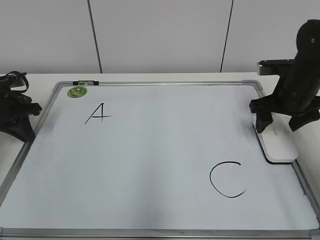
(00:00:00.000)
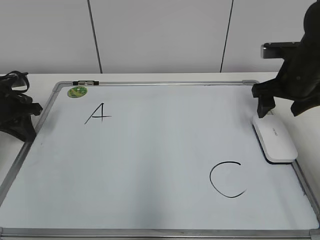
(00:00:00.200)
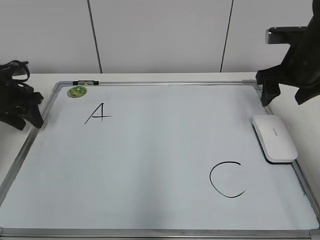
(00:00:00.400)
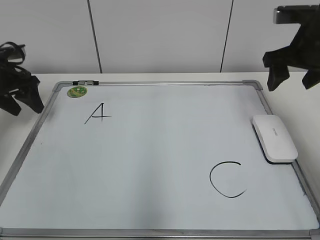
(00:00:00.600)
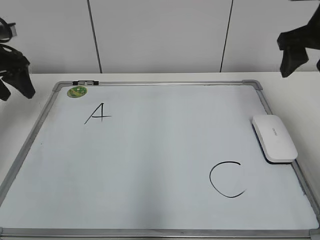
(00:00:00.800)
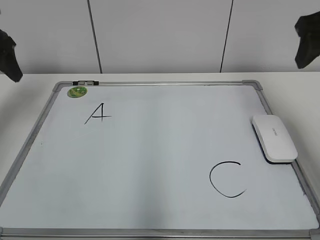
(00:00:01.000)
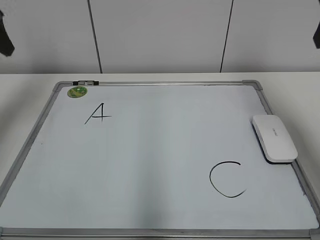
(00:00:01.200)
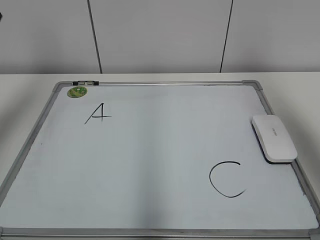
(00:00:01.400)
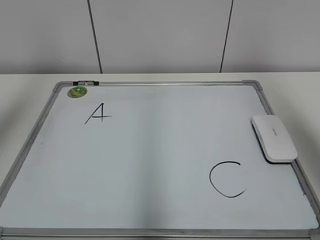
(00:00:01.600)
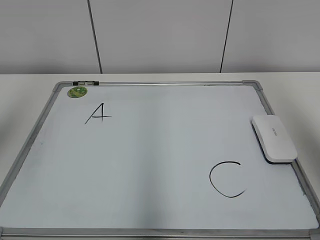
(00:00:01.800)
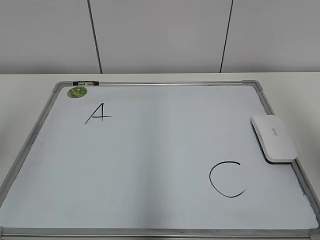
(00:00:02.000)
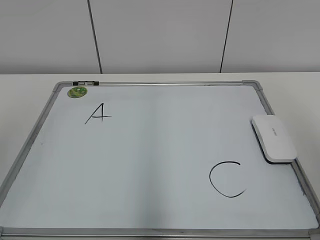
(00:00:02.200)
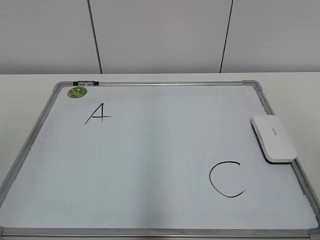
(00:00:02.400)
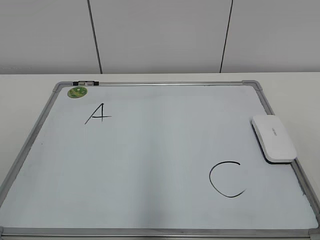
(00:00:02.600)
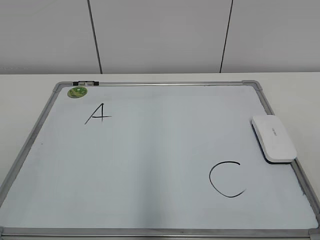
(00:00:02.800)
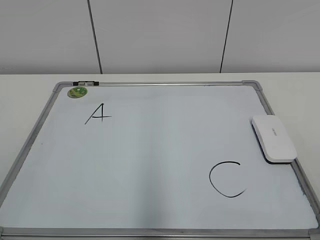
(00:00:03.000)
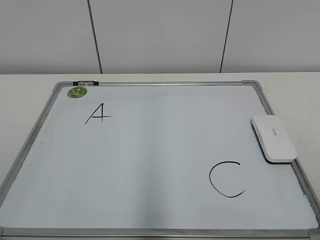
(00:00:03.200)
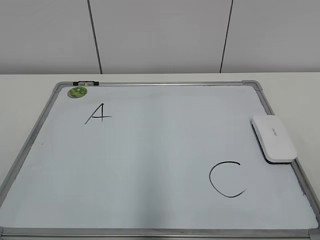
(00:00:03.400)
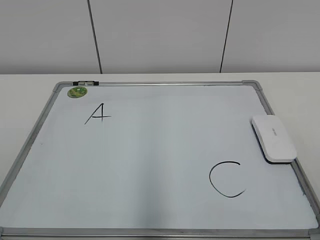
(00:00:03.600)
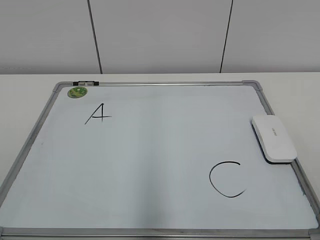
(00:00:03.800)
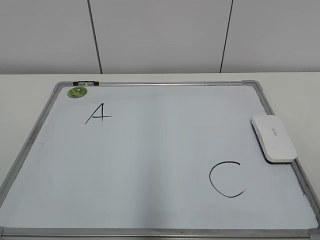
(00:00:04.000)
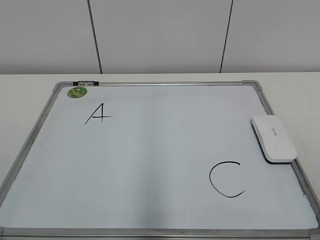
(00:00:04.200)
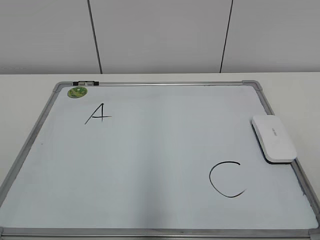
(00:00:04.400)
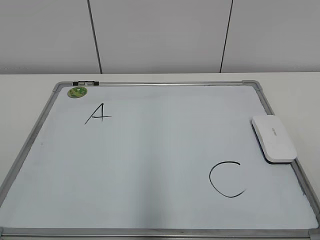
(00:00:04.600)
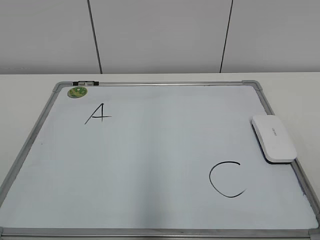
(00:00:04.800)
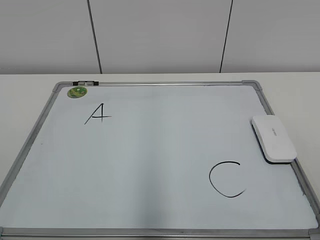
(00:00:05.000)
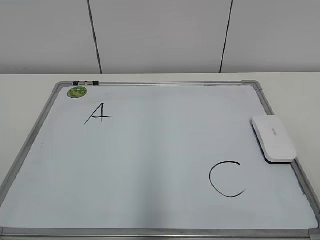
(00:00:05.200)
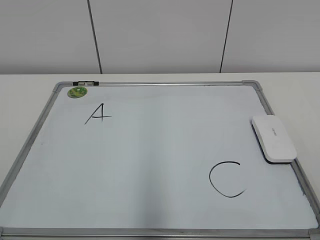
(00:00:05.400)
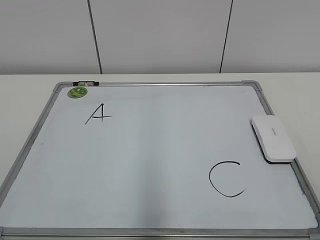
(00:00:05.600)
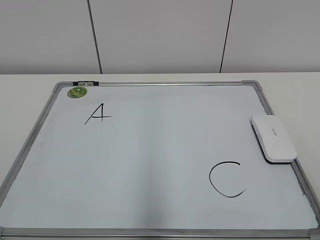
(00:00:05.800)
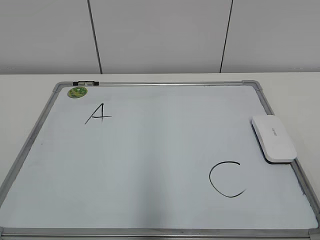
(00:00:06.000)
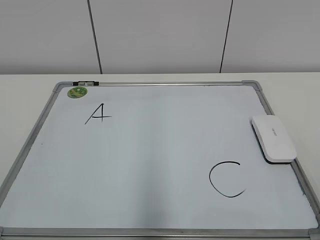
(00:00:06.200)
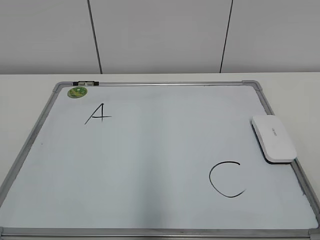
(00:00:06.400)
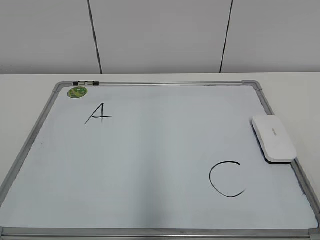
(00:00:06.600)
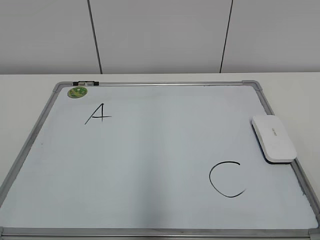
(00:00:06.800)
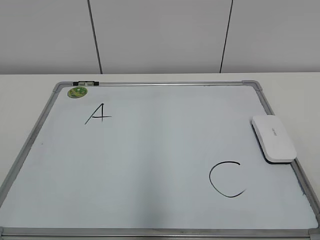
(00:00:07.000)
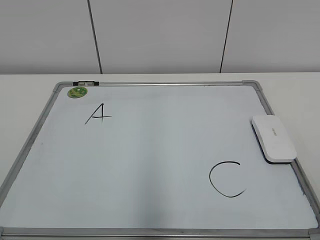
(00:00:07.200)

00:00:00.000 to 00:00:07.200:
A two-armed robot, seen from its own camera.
Task of the whole recording: pick up the eraser on the blackboard and erase the letter "B".
00:00:00.000 to 00:00:01.400: The right gripper shifts about 25 cm upward and backward, and closes up. Meanwhile the left gripper travels upward by some 25 cm, and opens.
00:00:01.400 to 00:00:02.800: The two grippers go roughly 30 cm backward.
00:00:05.800 to 00:00:07.200: Both grippers stay about where they are.
